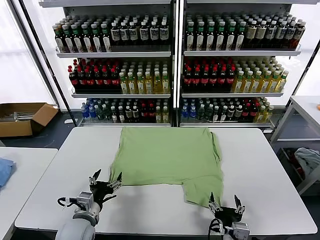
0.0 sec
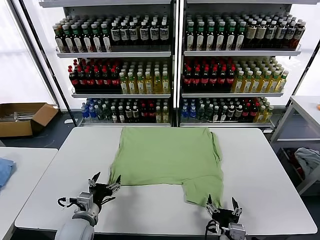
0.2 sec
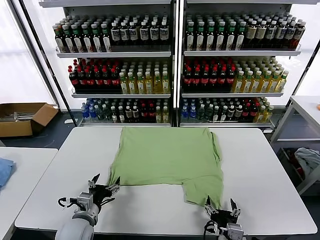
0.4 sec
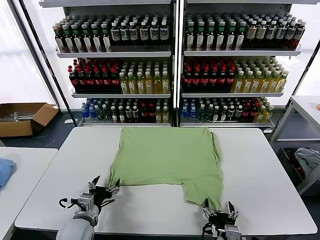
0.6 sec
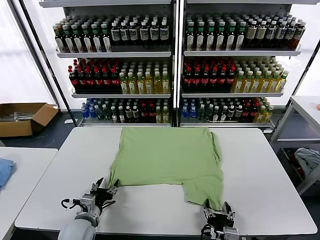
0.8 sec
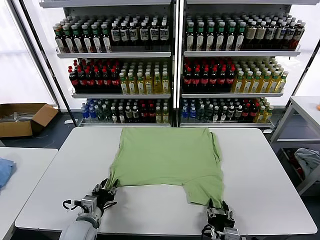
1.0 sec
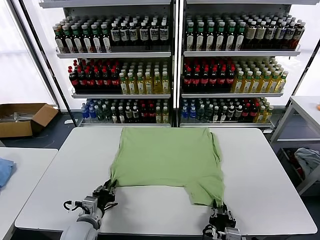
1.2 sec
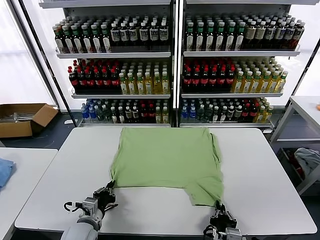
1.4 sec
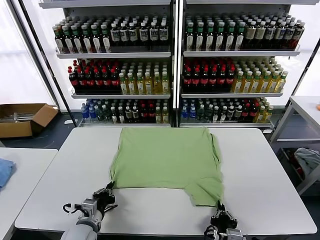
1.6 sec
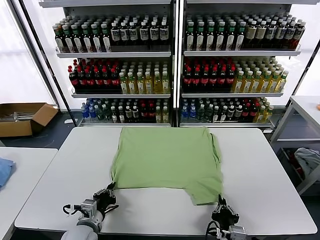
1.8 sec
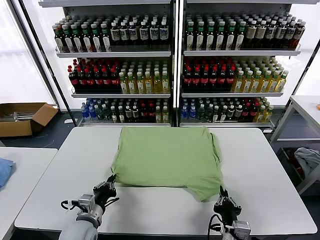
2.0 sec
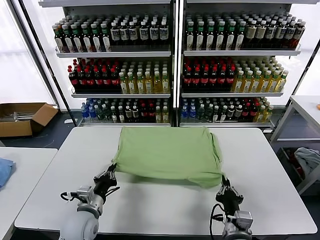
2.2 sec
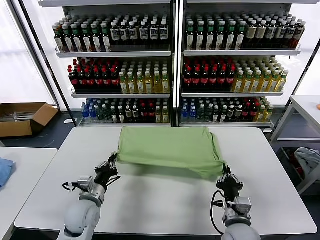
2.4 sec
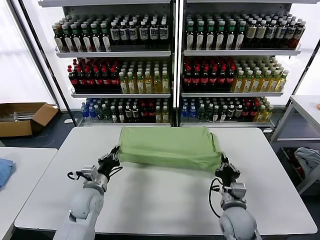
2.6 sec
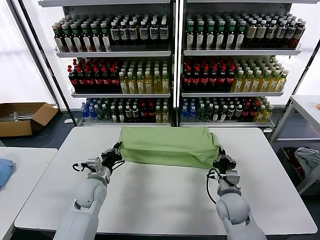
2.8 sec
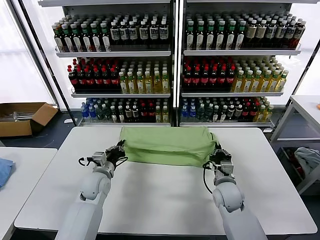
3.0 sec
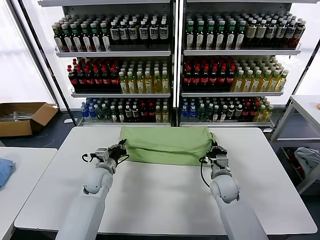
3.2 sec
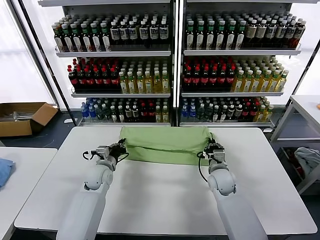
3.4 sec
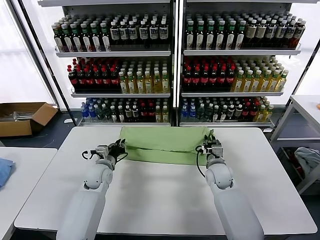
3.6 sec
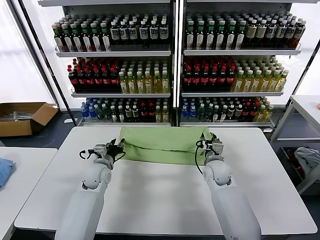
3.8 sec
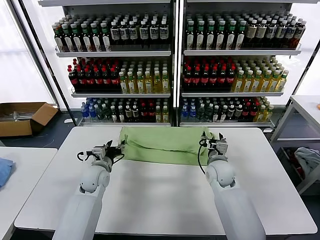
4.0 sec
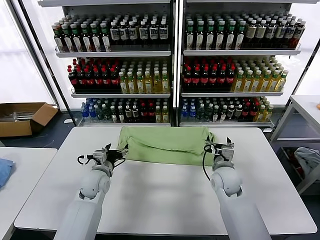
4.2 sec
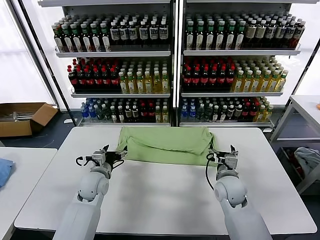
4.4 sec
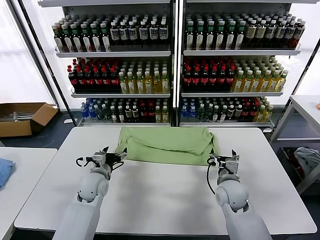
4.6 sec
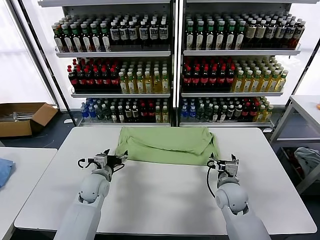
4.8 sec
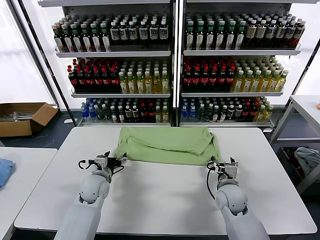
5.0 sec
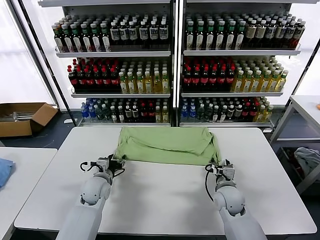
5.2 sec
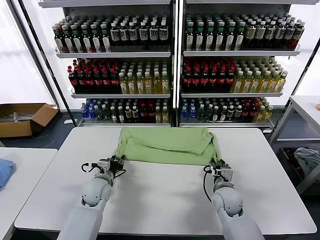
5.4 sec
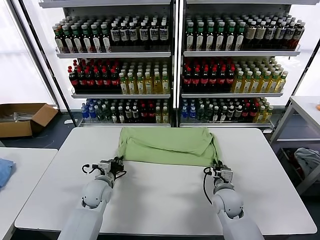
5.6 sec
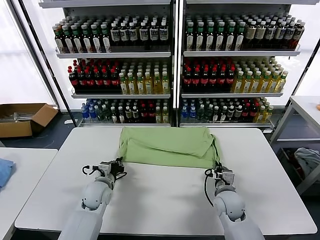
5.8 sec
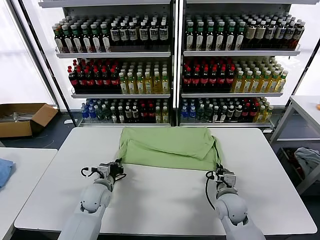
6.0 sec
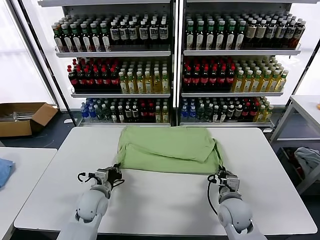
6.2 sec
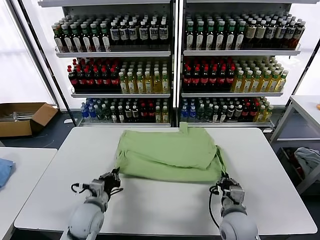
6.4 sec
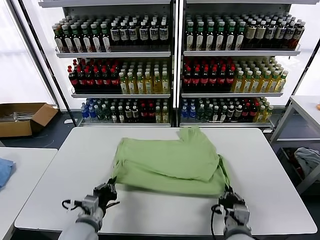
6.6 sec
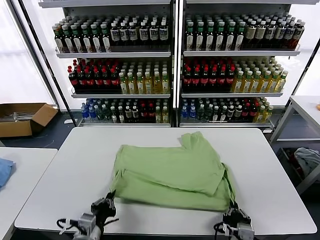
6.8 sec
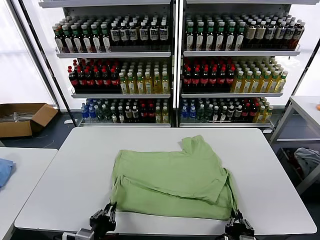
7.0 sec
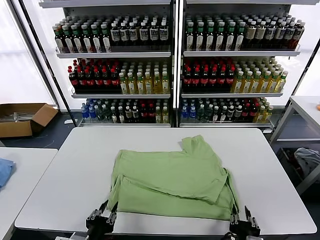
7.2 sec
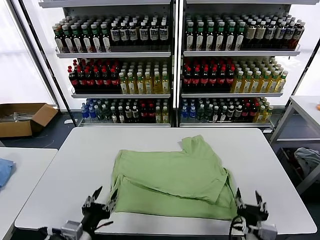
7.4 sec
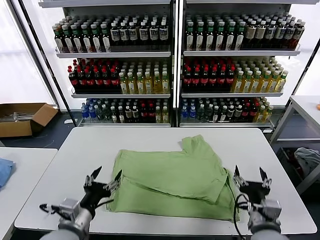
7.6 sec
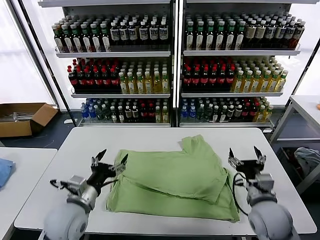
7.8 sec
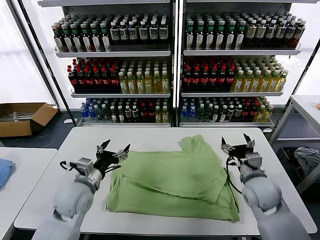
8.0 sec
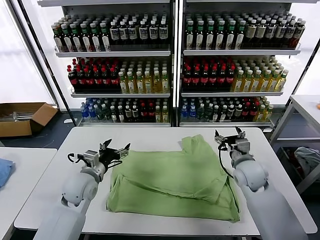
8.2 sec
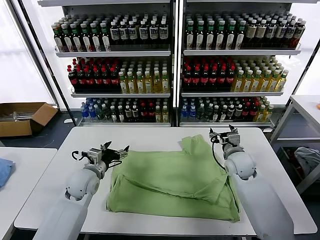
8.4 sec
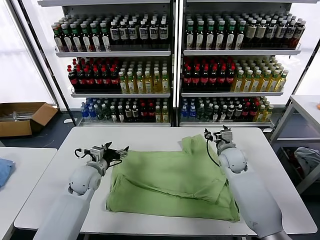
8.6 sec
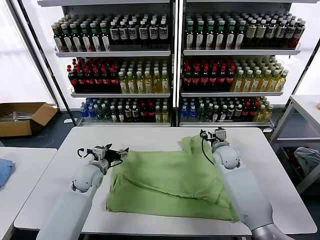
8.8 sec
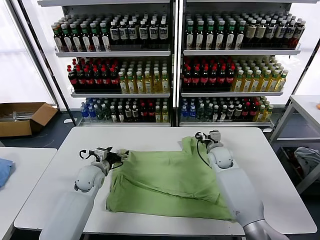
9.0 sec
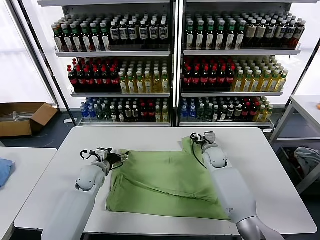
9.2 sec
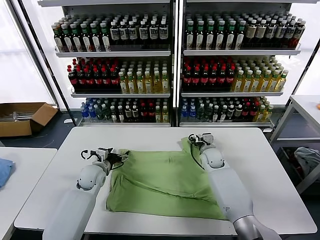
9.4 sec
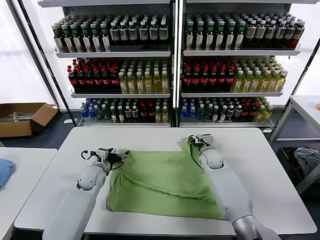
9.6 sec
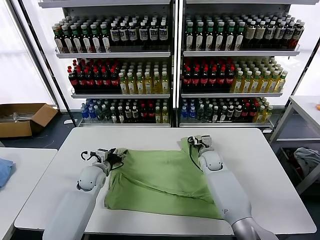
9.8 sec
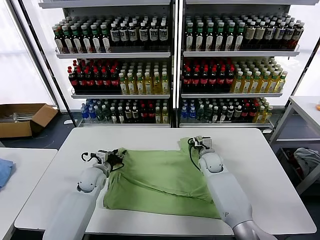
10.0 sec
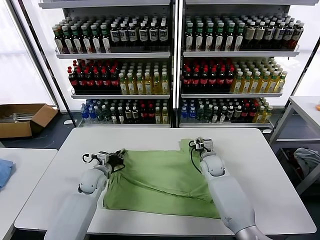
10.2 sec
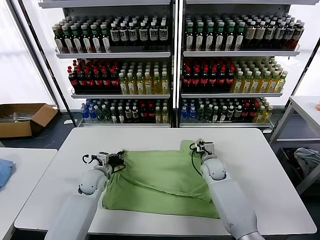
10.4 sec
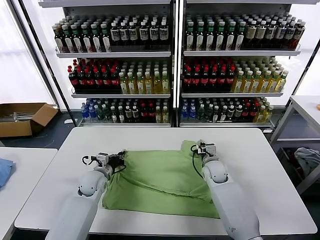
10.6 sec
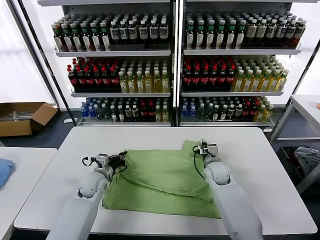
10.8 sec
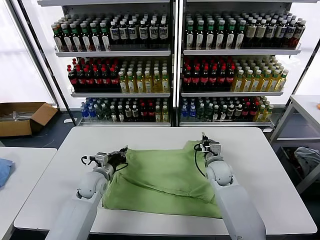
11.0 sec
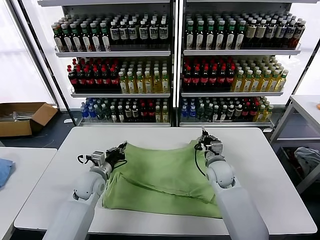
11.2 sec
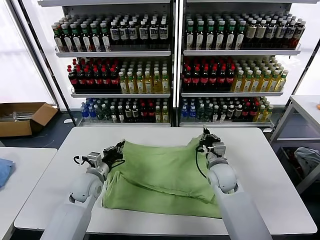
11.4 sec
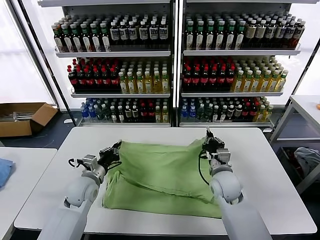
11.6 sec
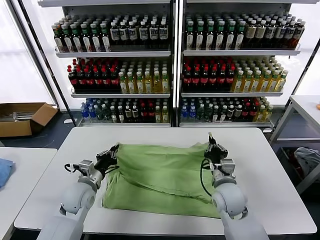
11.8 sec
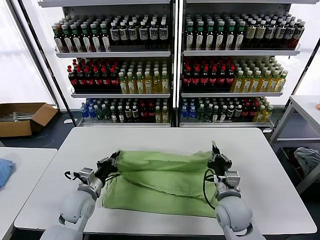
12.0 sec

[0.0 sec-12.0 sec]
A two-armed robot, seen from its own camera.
Task of the whole recording: fold and organize the clothes.
Step, 0.0 sec to 1.6 sec: use both grippers simultaneously to clamp the lower edge of the clothing fabric.
Step, 1.8 sec to 3.6 sec: use both grippers to drag the lower edge of the fabric forward and fold it over the upper edge.
Step, 4.0 sec to 7.0 sec: Drag the clothes downward with both gripper.
Step, 7.4 sec to 10.4 sec: use both grippers simultaneously to clamp the upper edge of the clothing fabric.
1.6 sec to 3.0 sec: Both grippers travel together forward, some 20 cm.
3.0 sec to 4.4 sec: The left gripper opens its fingers; the right gripper opens its fingers.
4.4 sec to 6.0 sec: The left gripper moves roughly 5 cm, and closes its fingers. Meanwhile the right gripper changes place by roughly 5 cm, and closes its fingers.
6.0 sec to 7.6 sec: The left gripper moves backward and upward, roughly 20 cm, and opens. The right gripper moves upward and backward, roughly 15 cm, and opens up.
7.6 sec to 9.0 sec: The grippers both shift forward by about 25 cm.
9.0 sec to 10.4 sec: The left gripper closes up. The right gripper moves approximately 5 cm, and closes.
10.4 sec to 12.0 sec: The right gripper moves backward, some 20 cm; the left gripper travels backward by some 10 cm.

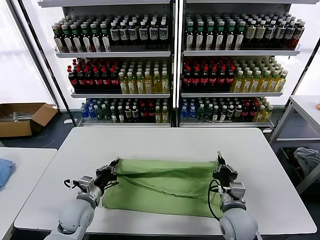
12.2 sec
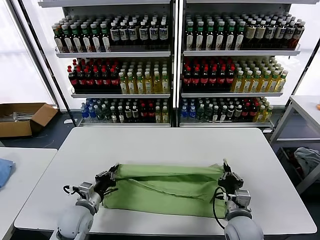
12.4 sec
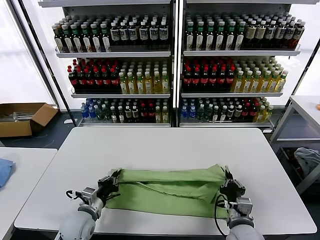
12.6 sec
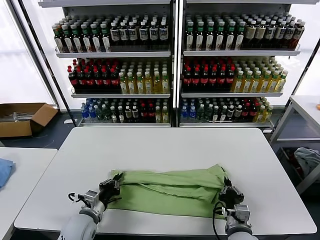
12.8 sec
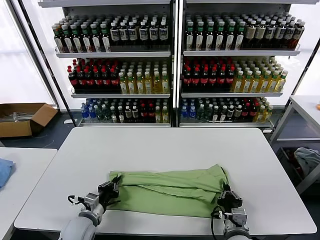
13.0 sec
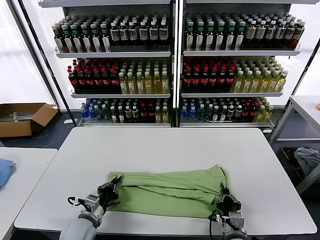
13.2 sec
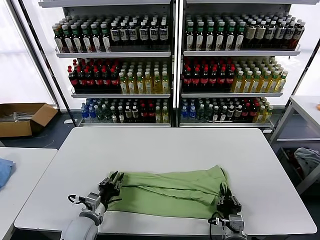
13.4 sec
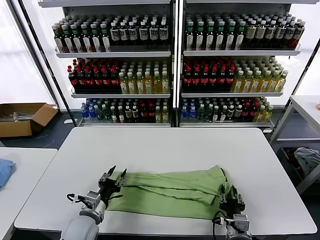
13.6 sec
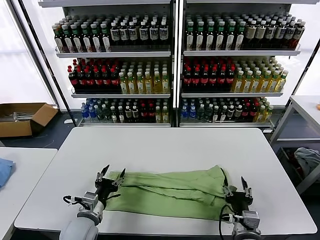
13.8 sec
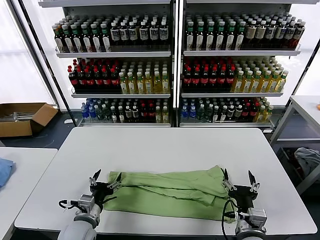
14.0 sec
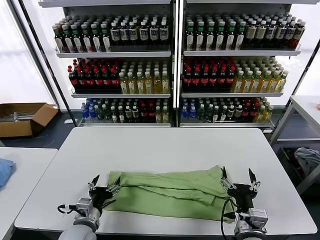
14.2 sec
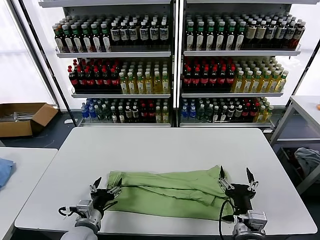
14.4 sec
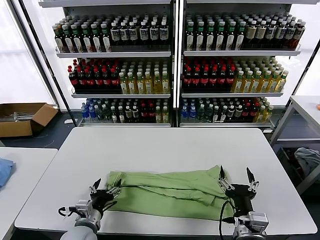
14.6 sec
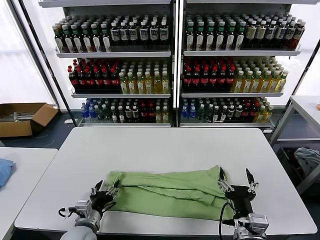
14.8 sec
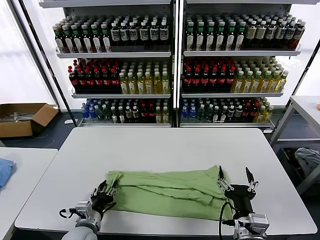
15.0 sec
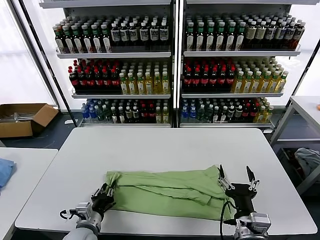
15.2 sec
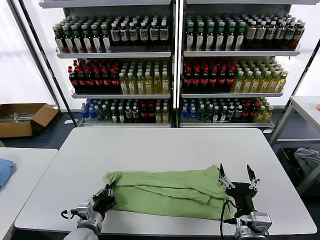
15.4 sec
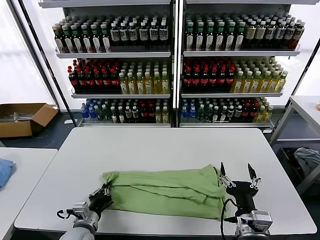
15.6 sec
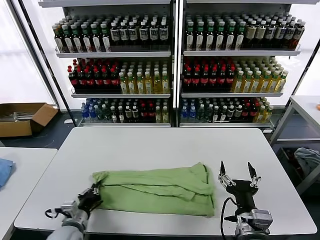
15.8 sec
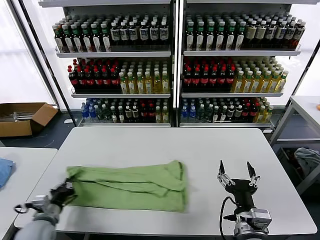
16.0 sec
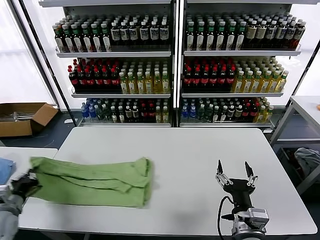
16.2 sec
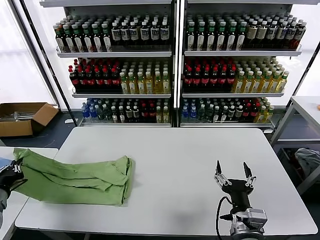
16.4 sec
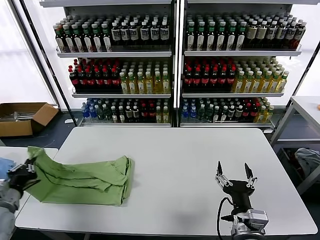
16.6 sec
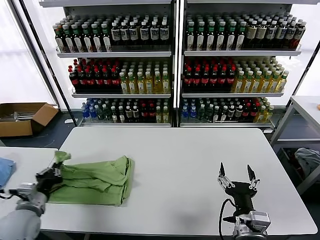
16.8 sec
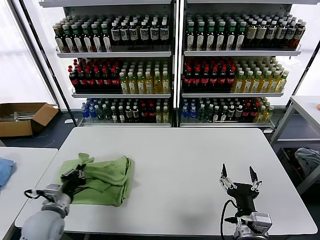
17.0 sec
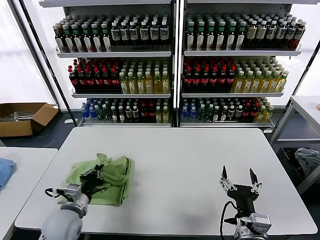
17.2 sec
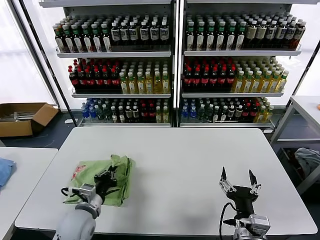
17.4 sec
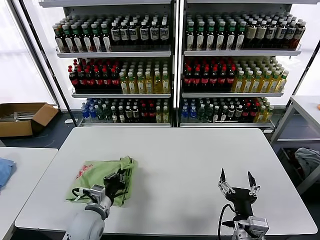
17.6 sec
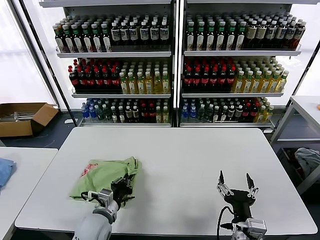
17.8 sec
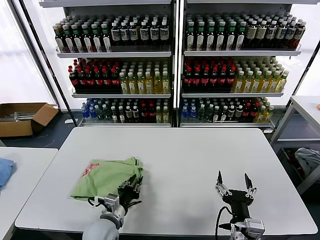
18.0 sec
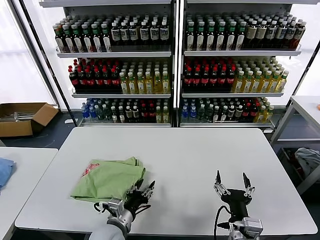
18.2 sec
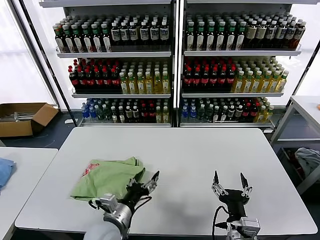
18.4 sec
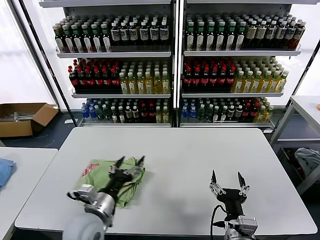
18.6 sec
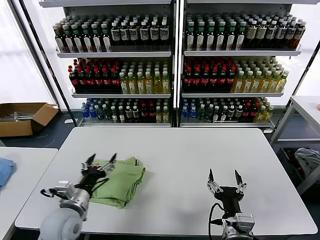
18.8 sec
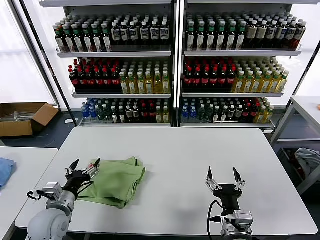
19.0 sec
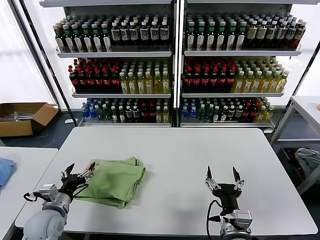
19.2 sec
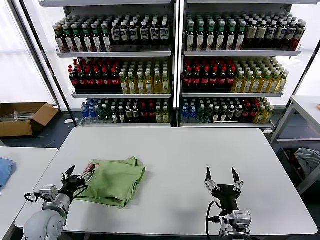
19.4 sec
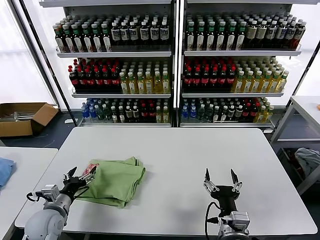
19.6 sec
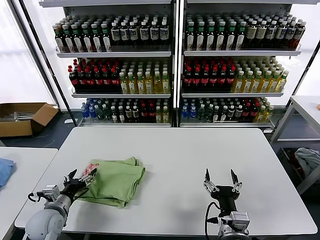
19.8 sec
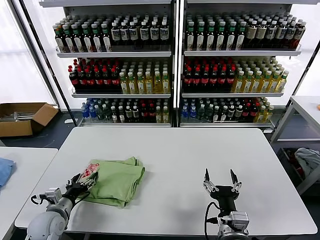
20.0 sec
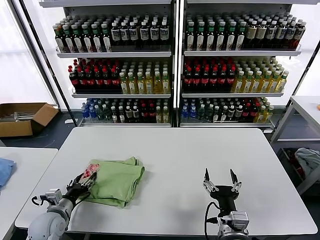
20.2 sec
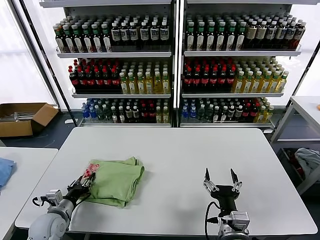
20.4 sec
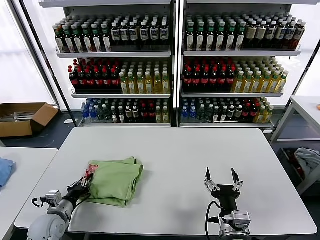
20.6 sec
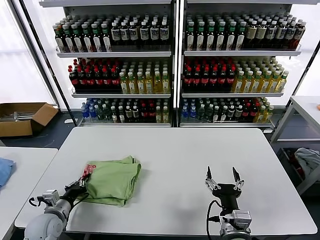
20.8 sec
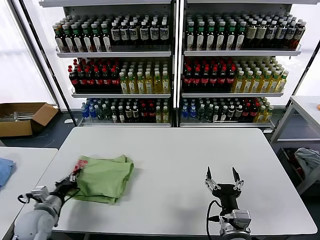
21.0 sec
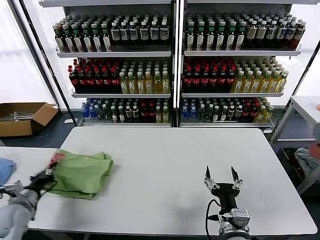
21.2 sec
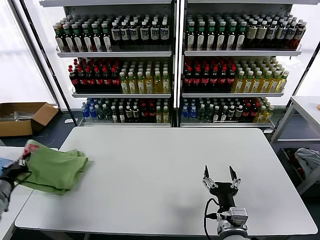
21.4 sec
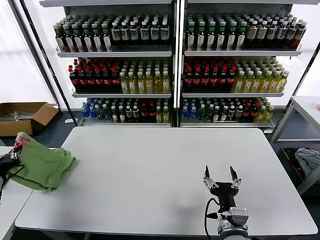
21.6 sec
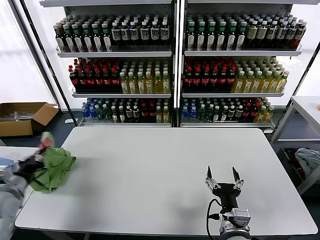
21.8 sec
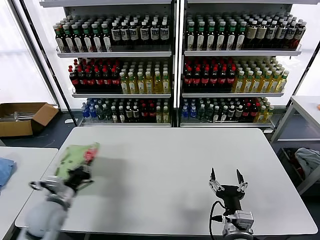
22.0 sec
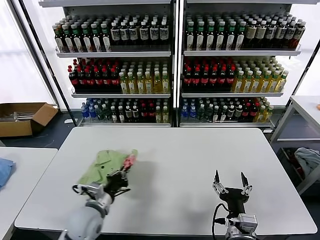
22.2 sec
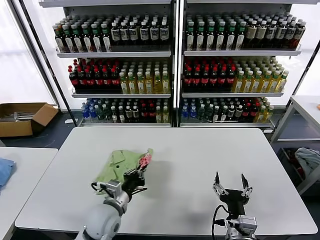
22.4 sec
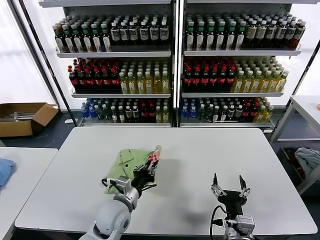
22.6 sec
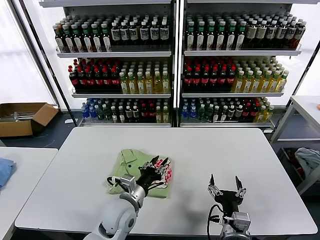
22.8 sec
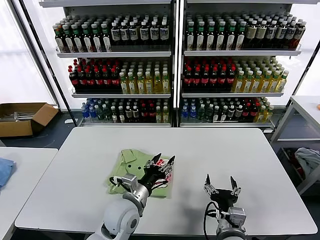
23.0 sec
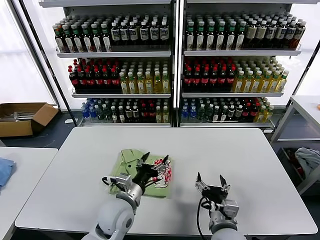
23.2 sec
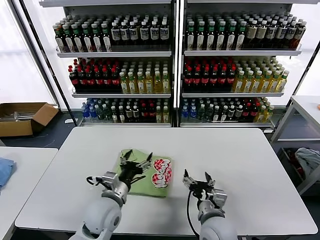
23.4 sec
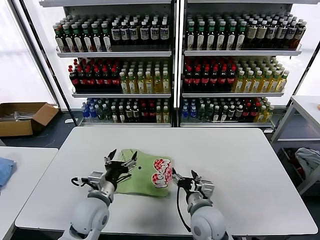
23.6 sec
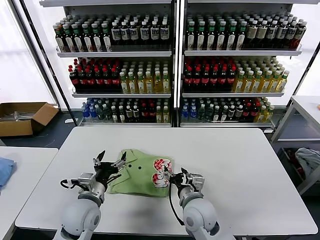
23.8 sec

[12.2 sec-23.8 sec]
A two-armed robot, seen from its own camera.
Task of the whole recording: fold and organize the clothes.
Step, 13.8 sec to 15.4 sec: use the left gripper to clamp the left edge of the fabric.
Step, 15.6 sec to 18.2 sec: use the left gripper to drag the left edge of the fabric to the left and folds it over the right edge.
Step, 18.4 sec to 22.8 sec: Flip the folded clothes over with left gripper.
12.2 sec to 13.6 sec: Both grippers travel together backward, roughly 5 cm. The left gripper opens; the right gripper opens its fingers.
13.6 sec to 15.0 sec: The right gripper travels upward by about 10 cm, and opens its fingers, while the left gripper opens, then closes again.
15.0 sec to 16.6 sec: The left gripper shifts some 25 cm to the left and upward, and closes up.
16.6 sec to 18.0 sec: The left gripper goes about 30 cm to the right, and opens up.
18.0 sec to 19.4 sec: The left gripper travels to the left by roughly 15 cm, and opens up.
19.4 sec to 21.0 sec: The left gripper moves some 5 cm, and closes.
21.0 sec to 22.4 sec: The left gripper shifts about 20 cm to the right.
22.4 sec to 23.8 sec: The right gripper moves forward and to the left, some 15 cm. The left gripper travels to the right and back again, approximately 5 cm each way, and opens up.
